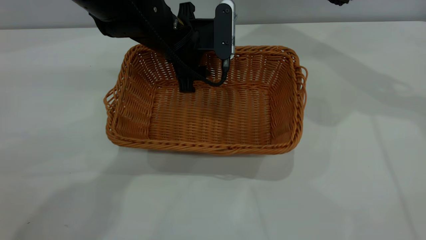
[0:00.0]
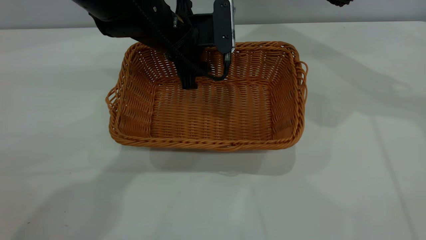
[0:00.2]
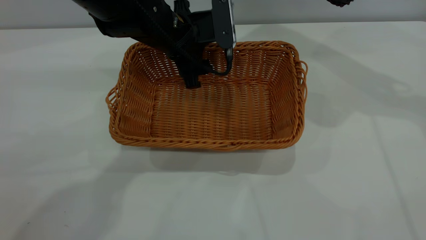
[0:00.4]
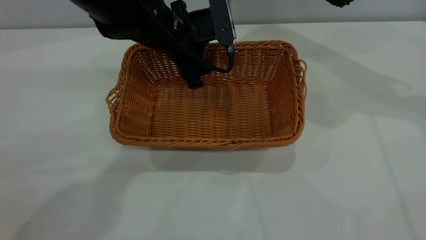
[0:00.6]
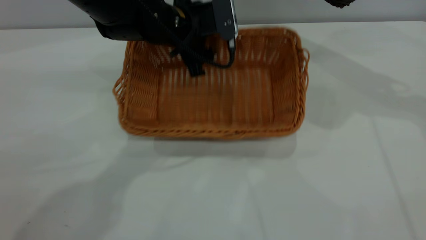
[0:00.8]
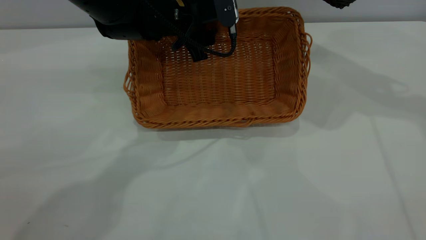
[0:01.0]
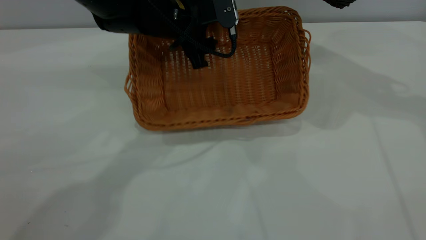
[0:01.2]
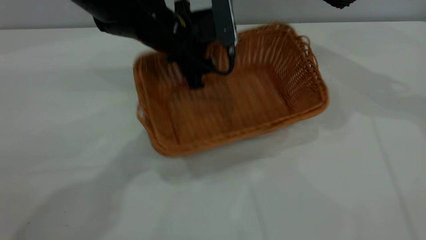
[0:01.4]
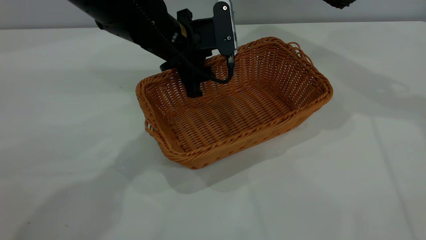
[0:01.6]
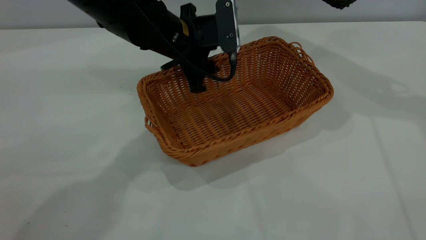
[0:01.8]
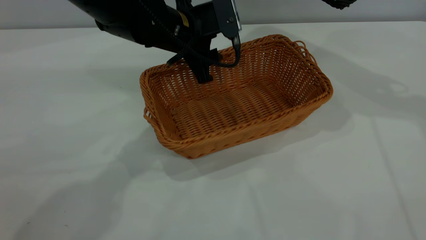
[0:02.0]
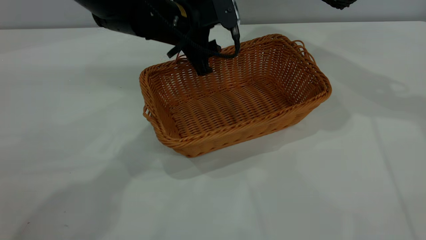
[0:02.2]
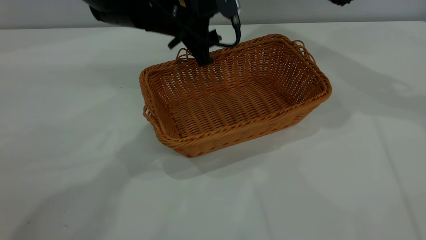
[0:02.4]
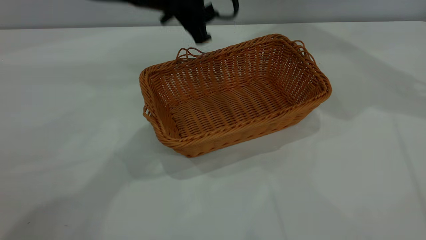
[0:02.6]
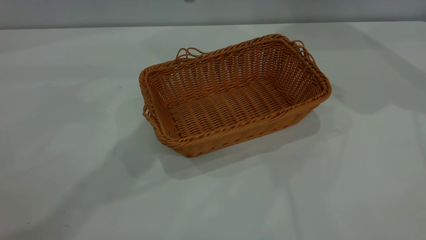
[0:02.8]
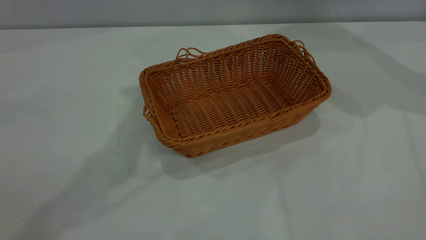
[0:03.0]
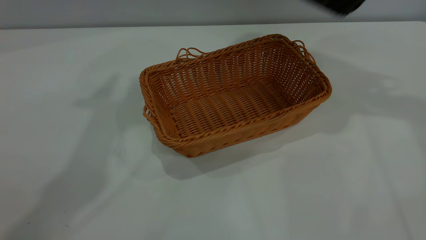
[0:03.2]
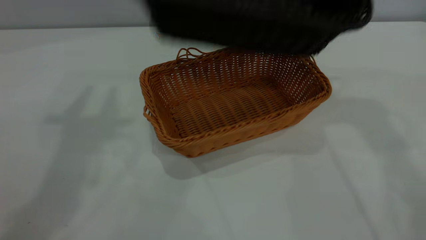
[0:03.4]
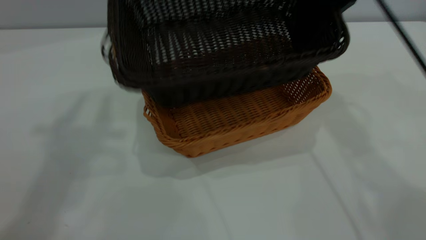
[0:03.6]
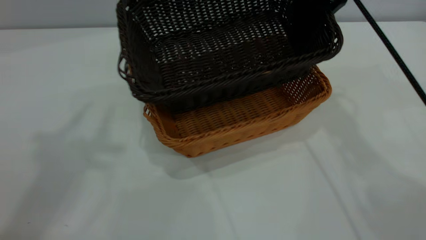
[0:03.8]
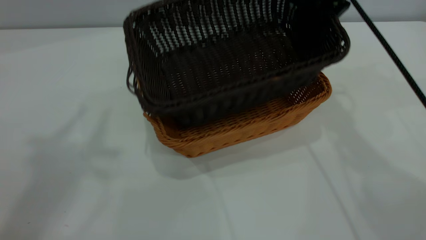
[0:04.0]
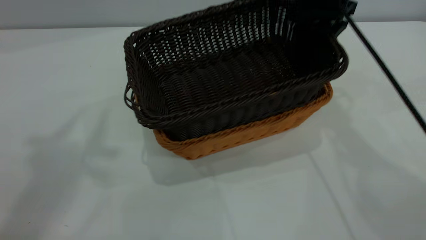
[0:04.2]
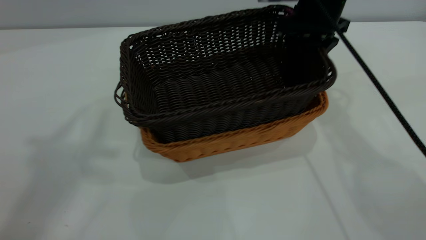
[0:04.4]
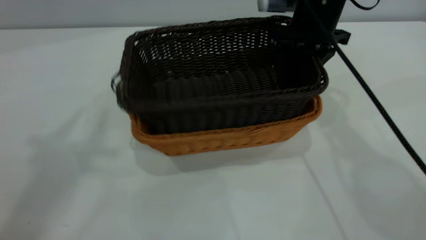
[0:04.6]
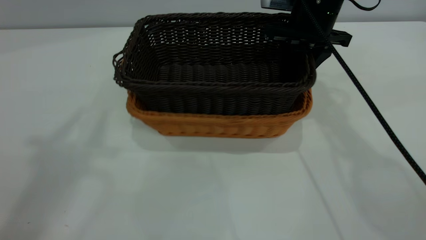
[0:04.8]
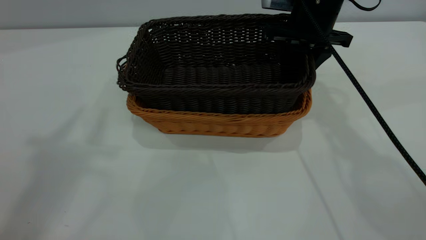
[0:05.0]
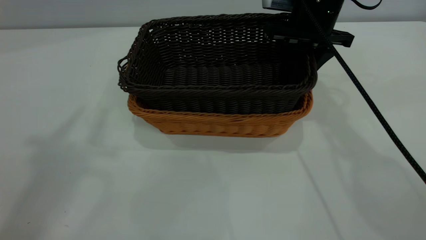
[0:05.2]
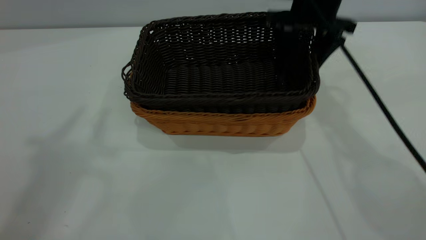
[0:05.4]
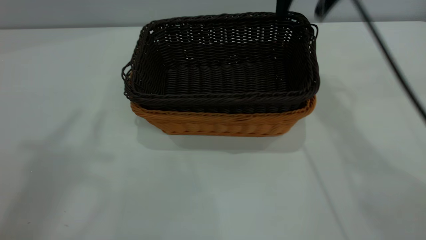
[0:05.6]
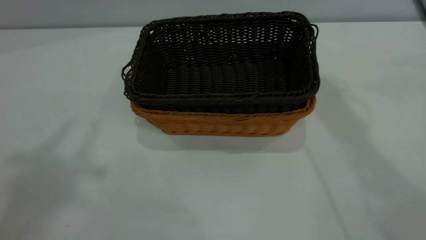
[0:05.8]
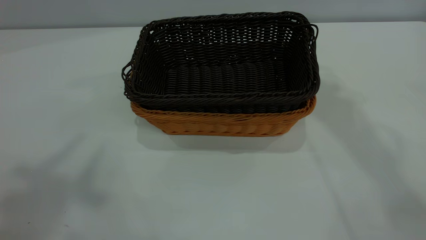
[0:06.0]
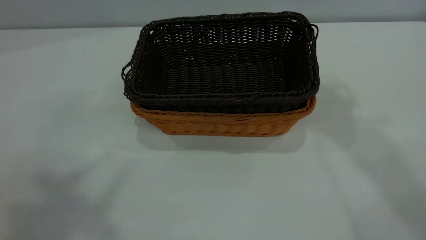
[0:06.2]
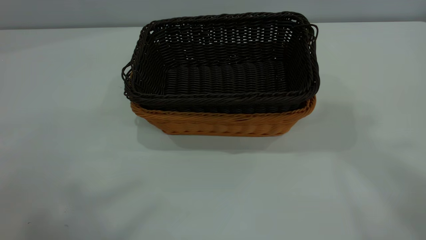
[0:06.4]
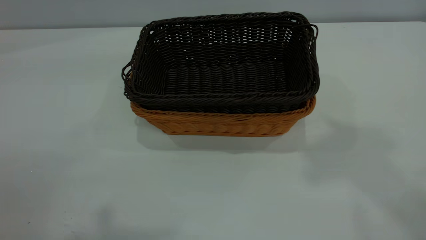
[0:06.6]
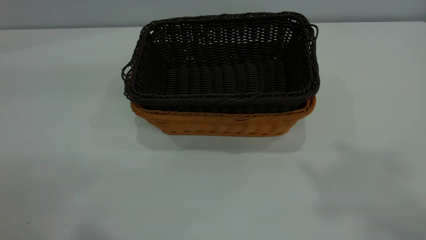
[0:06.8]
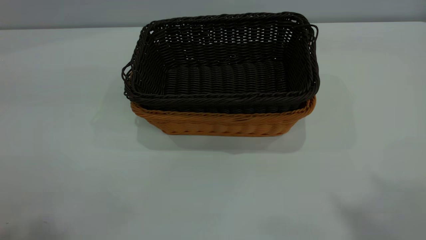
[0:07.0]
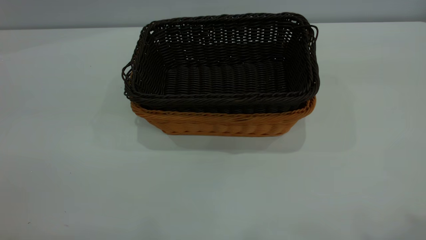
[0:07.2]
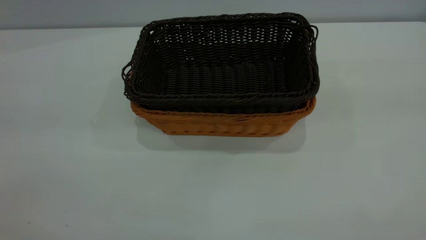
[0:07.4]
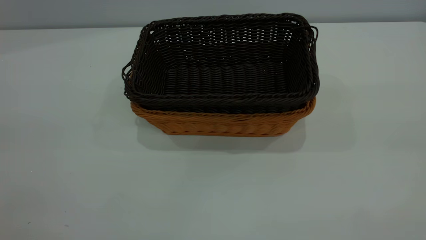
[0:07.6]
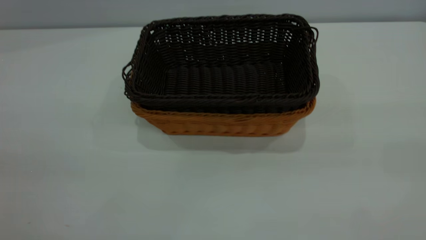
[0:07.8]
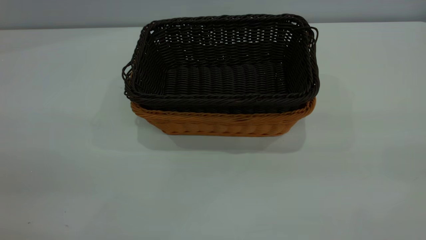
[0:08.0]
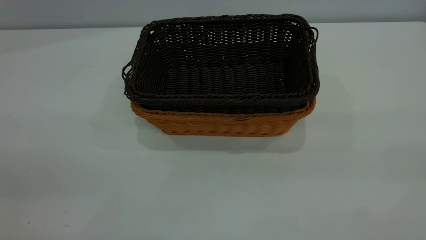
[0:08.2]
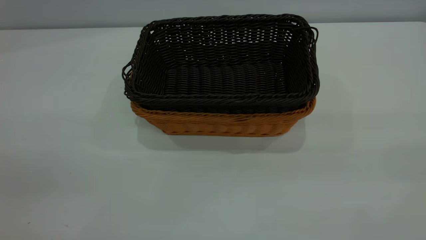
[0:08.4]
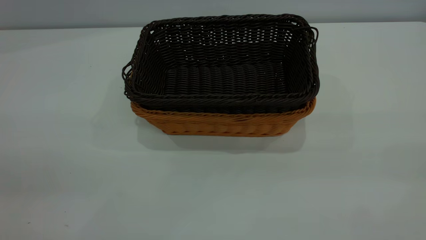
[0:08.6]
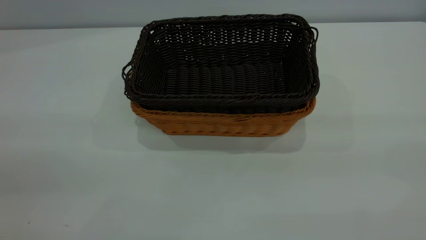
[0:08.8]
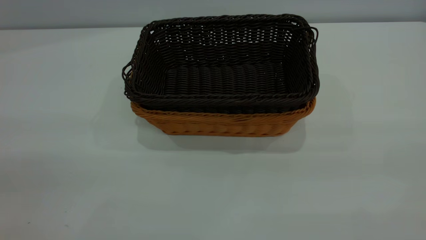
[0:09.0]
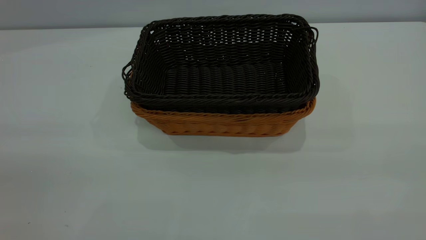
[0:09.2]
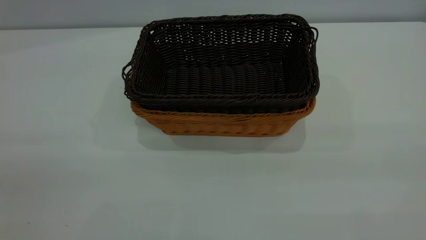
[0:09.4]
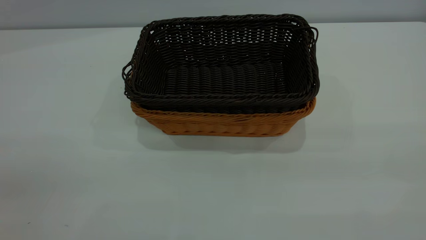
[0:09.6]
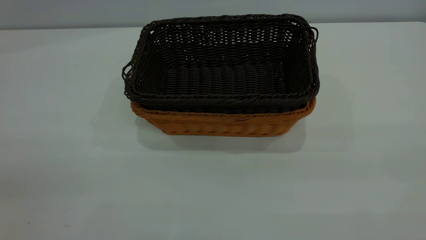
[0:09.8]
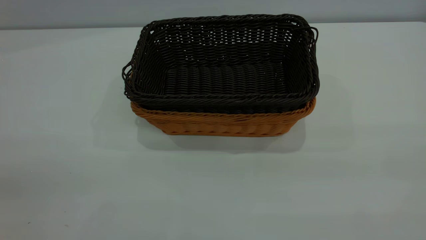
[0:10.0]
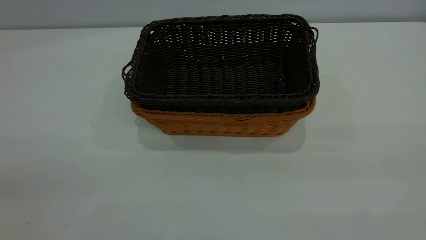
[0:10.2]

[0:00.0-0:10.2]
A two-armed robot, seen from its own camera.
Task of the whole recording: the left gripper grasp the brown basket and place it in the center of the table, the right gripper grasp the black basket and place it inside the brown one.
Step, 0:00.0 to 0:02.4: Place the light-colored basket in the center.
Step, 0:02.6 to 0:05.4: Place the dark basket on top of the light basket.
0:01.4 to 0:03.0: The right gripper goes about 5 cm to the right. Meanwhile the left gripper travels upward by some 25 cm.
0:03.0 to 0:04.4: The left gripper goes roughly 20 cm upward, backward and to the left. The right gripper is displaced to the left and downward by approximately 25 cm.
0:04.4 to 0:05.8: The right gripper heads upward, covering some 20 cm, and opens up.

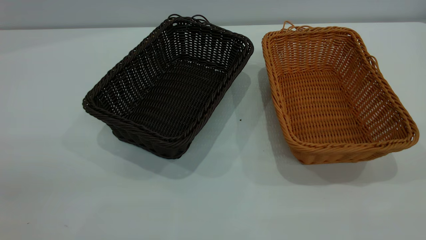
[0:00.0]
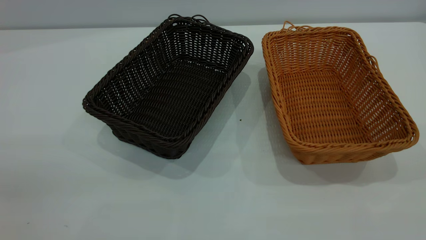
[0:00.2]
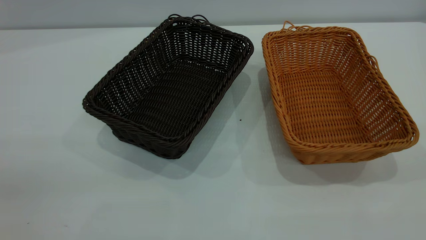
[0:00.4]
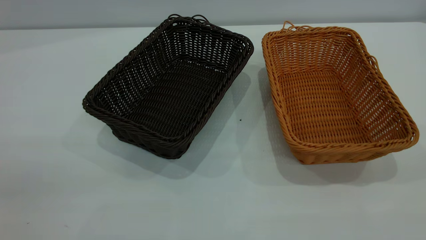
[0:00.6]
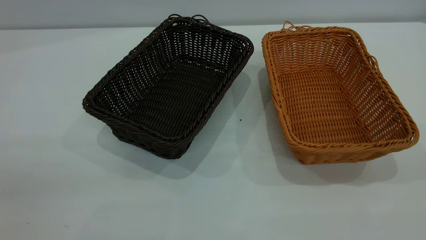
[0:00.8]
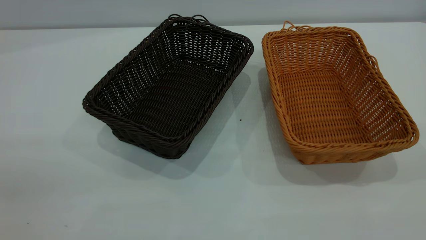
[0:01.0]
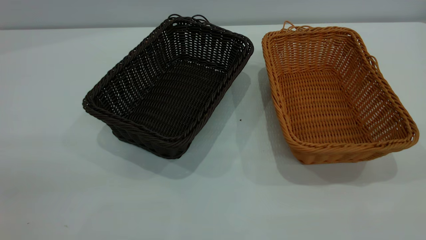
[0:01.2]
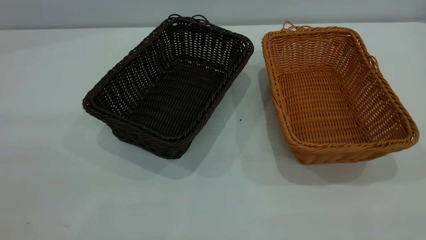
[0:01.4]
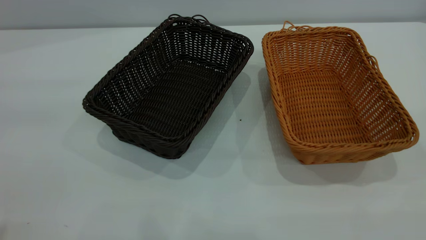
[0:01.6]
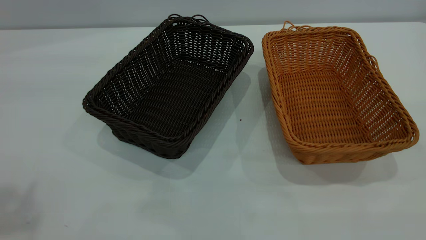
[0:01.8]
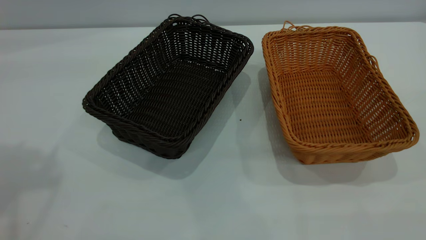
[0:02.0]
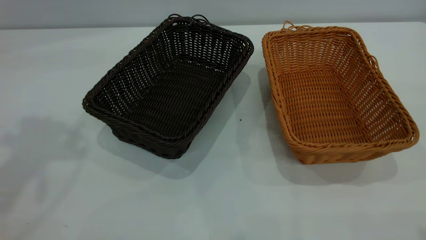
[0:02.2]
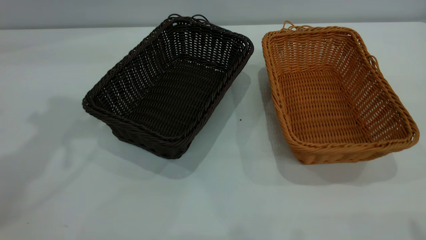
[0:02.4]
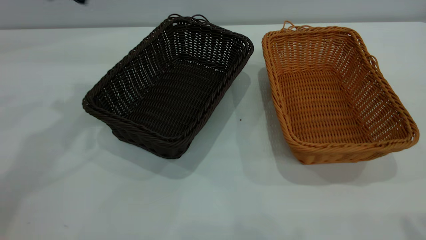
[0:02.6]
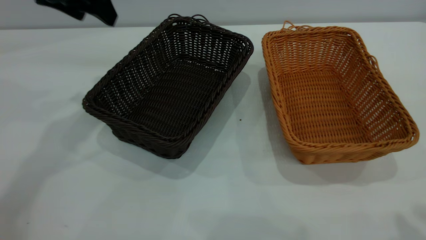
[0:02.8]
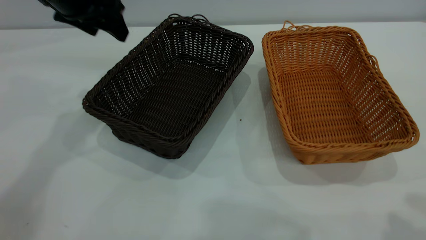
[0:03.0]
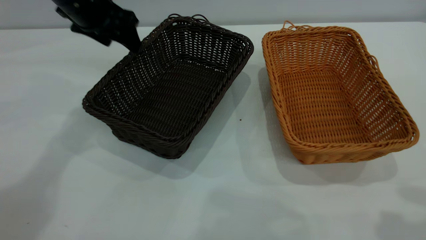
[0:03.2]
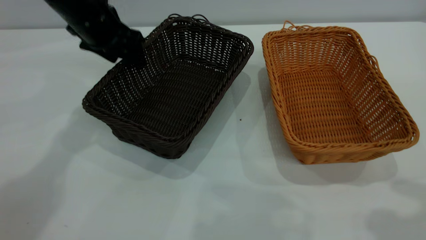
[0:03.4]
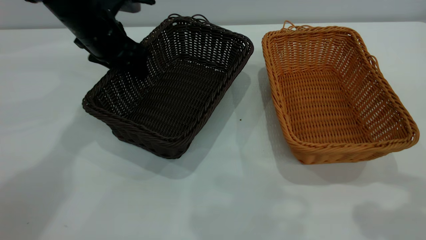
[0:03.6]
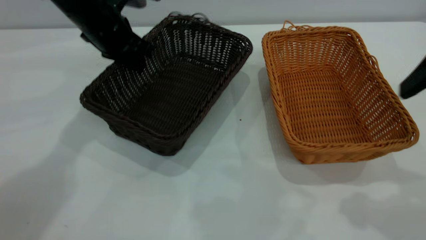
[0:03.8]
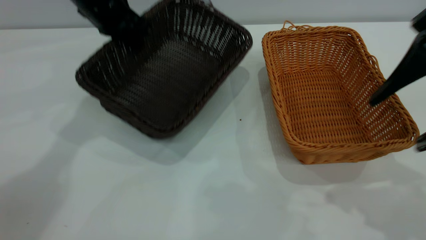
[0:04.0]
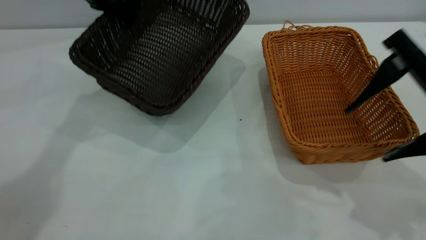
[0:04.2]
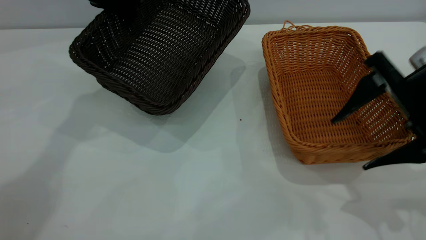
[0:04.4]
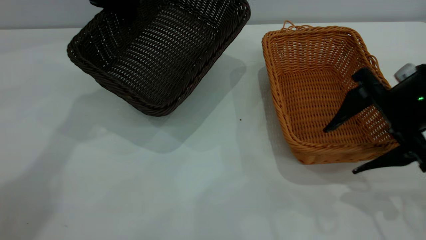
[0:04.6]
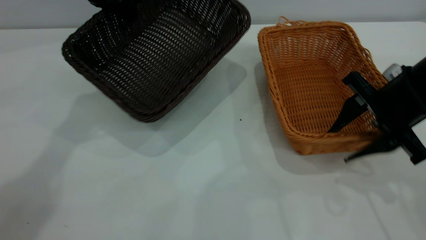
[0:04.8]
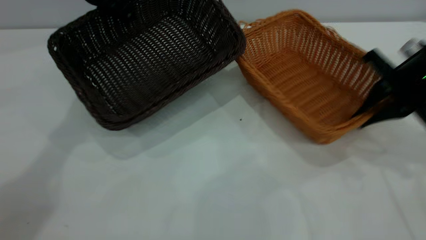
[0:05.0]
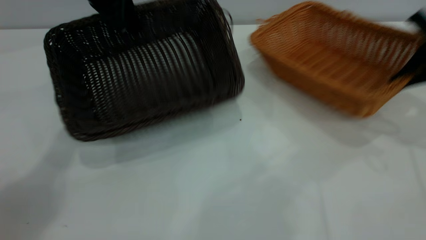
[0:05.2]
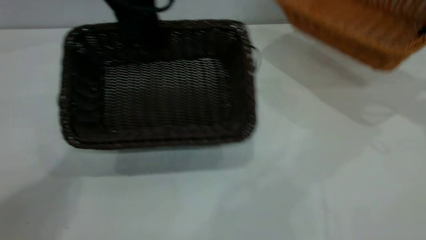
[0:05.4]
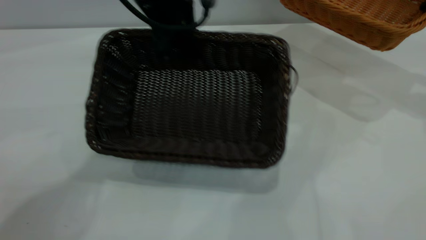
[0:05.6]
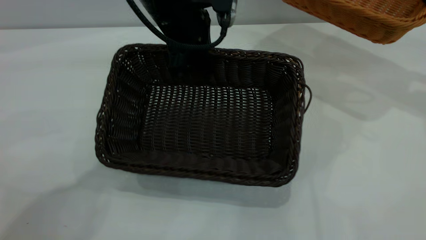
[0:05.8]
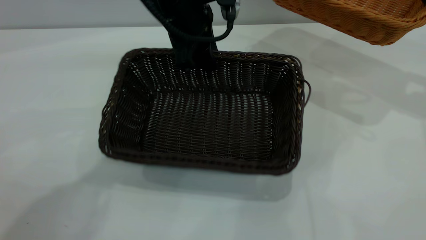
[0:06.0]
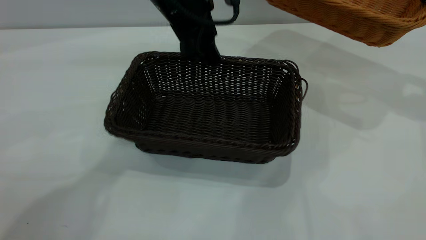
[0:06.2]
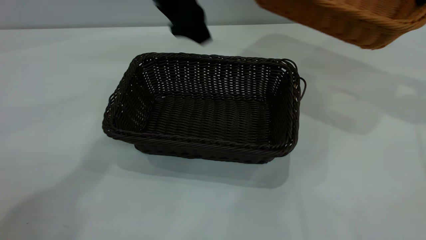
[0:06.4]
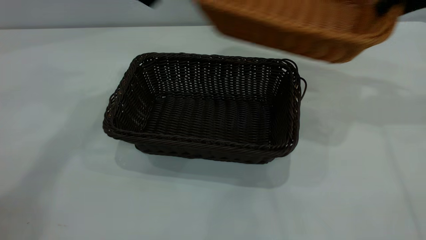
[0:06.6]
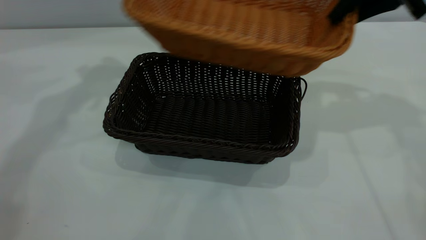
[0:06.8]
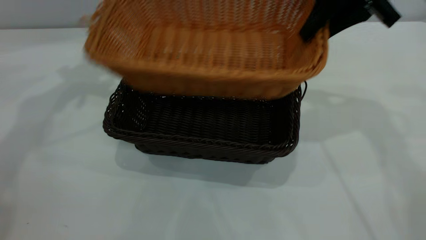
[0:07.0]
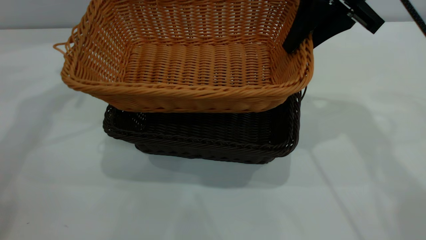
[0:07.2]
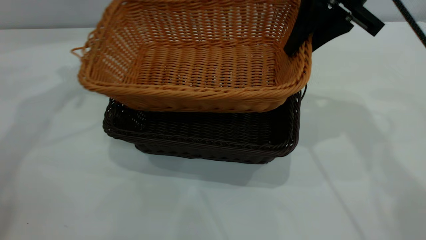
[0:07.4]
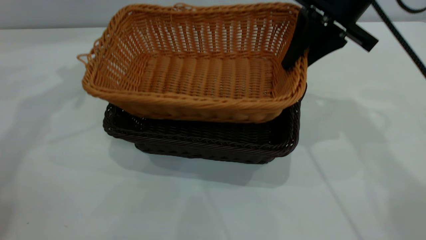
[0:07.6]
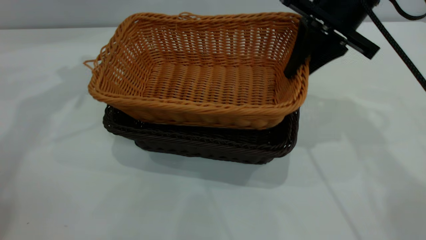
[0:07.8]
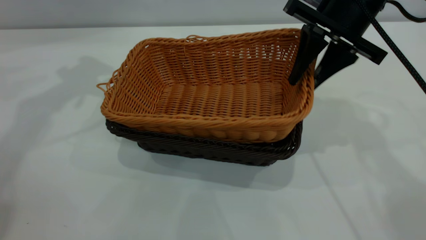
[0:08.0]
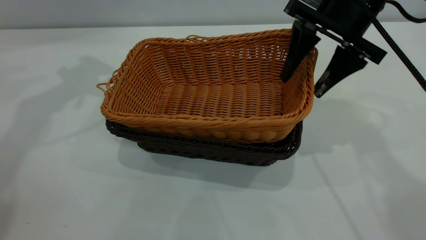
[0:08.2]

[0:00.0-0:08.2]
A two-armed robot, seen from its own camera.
Task of the whole recording: the left gripper grasp the black basket and place it in the center of the table, the right gripper grasp the brown basket and place it inside the black one.
Step, 0:00.0 to 0:05.2: Pick up the light basket with the right gripper.
Step, 0:05.6 to 0:06.2: Move the dark basket to the center of view.
0:01.6 to 0:03.2: The left gripper is displaced forward and downward by about 40 cm.
0:03.2 to 0:05.0: The left gripper closes up; the right gripper is displaced downward and forward by about 25 cm, and closes.
0:05.0 to 0:06.6: The right gripper shifts some 15 cm upward and forward; the left gripper heads upward, covering approximately 5 cm, reaches some 15 cm to the right, then returns, and opens its fingers.
0:06.6 to 0:08.2: The left gripper shifts some 10 cm to the left; the right gripper travels to the left and downward by about 15 cm, and opens up.
